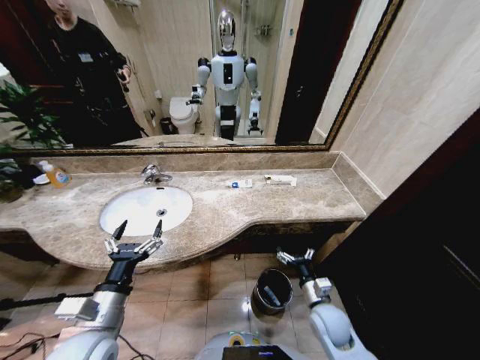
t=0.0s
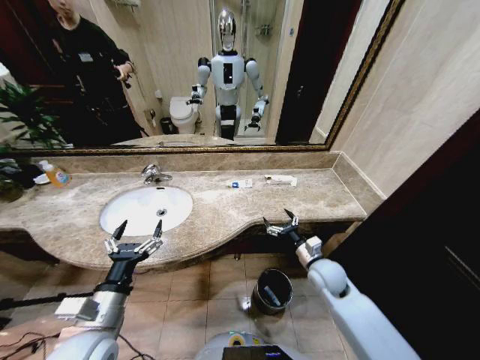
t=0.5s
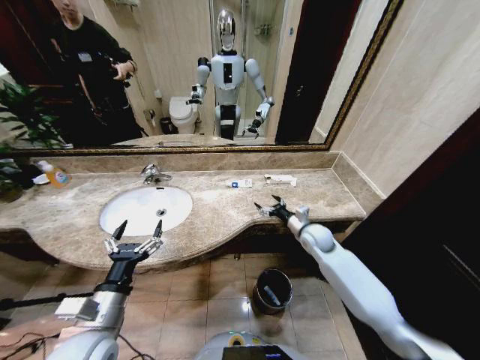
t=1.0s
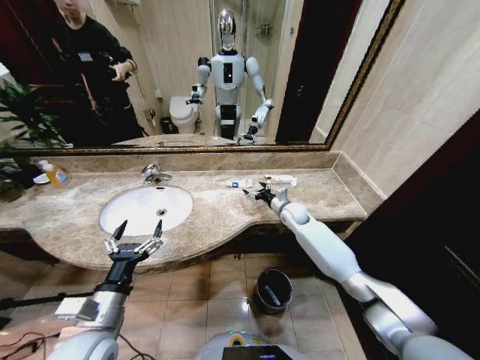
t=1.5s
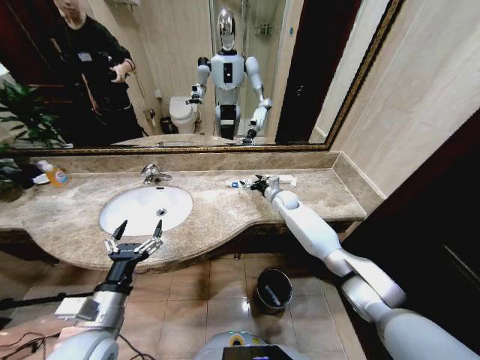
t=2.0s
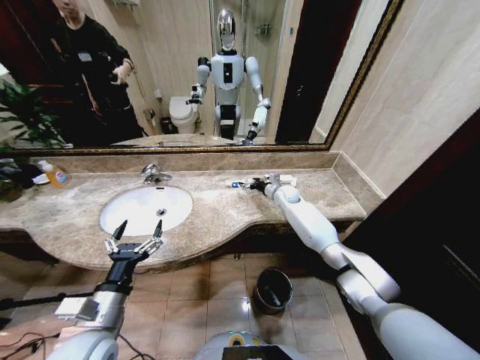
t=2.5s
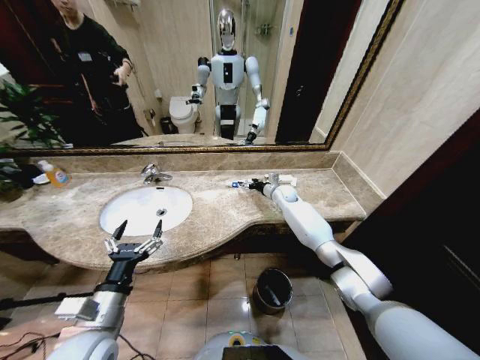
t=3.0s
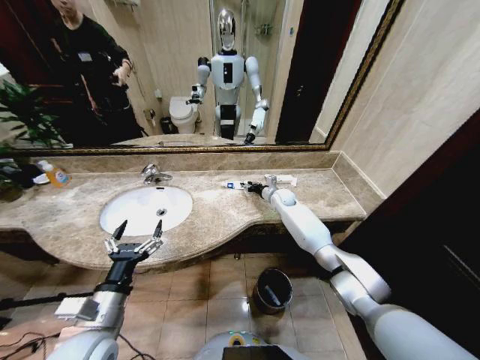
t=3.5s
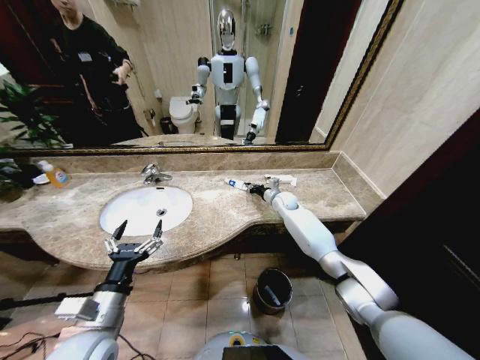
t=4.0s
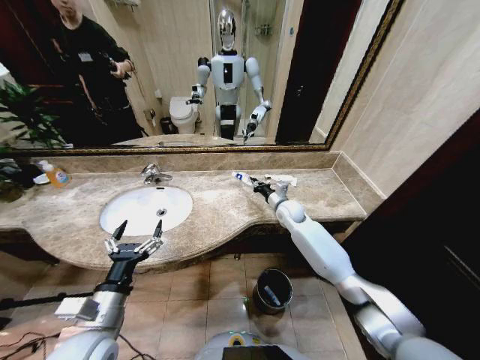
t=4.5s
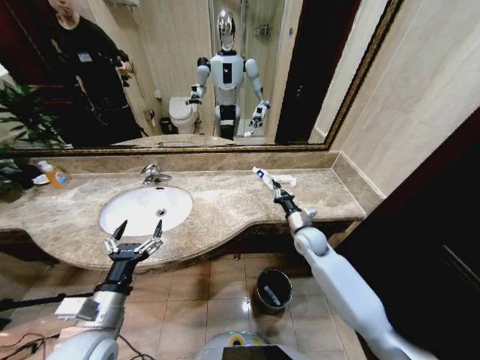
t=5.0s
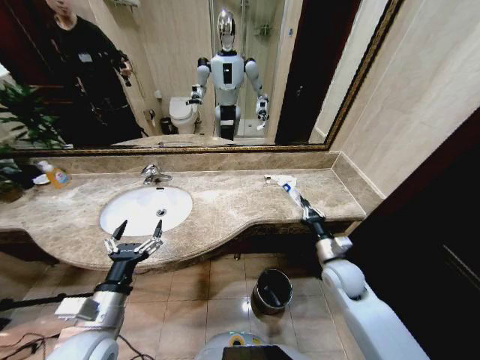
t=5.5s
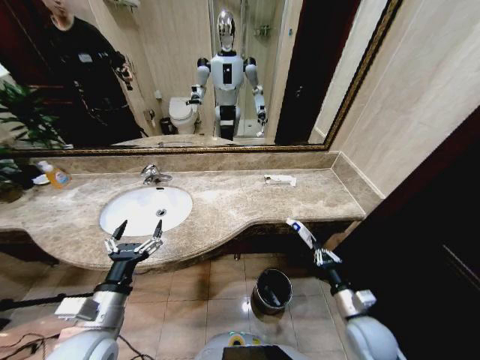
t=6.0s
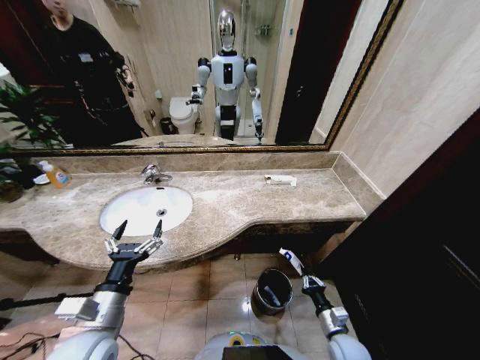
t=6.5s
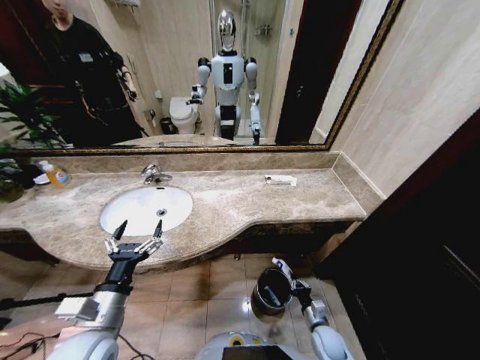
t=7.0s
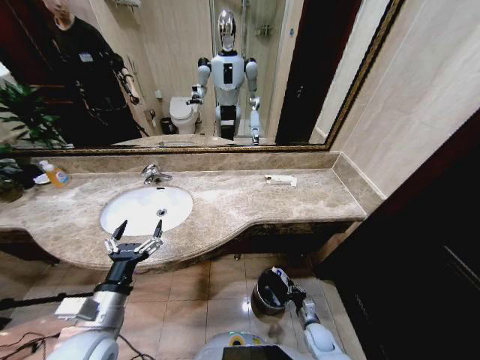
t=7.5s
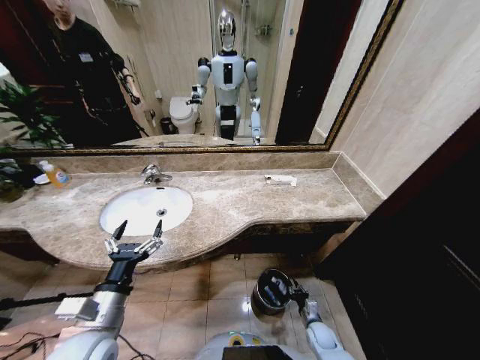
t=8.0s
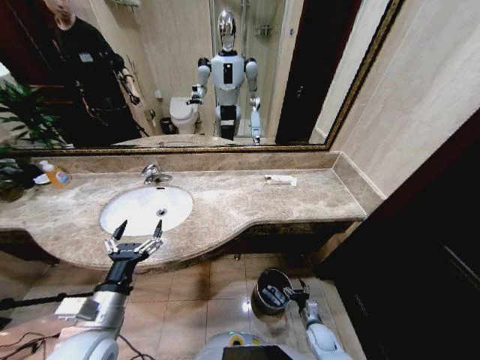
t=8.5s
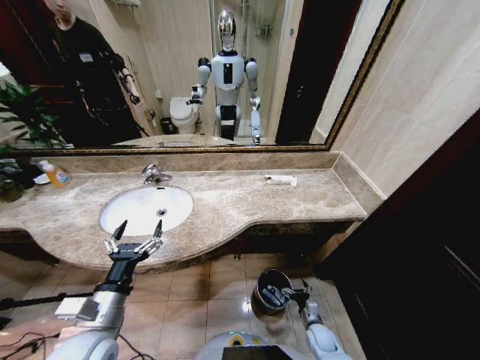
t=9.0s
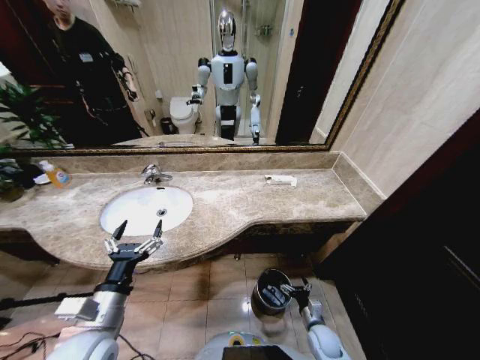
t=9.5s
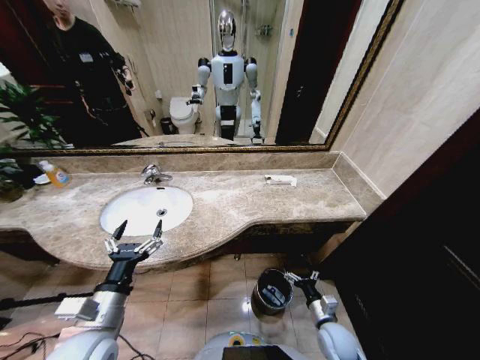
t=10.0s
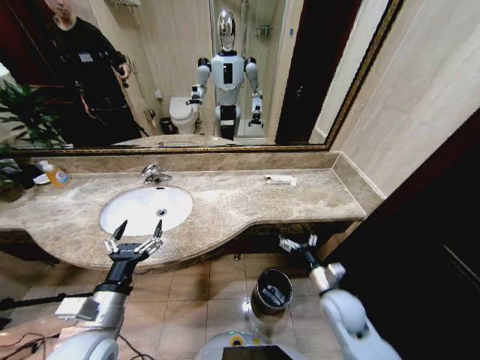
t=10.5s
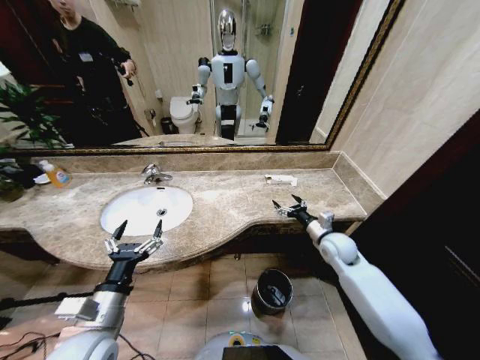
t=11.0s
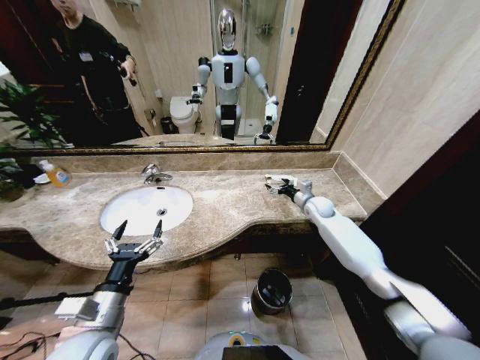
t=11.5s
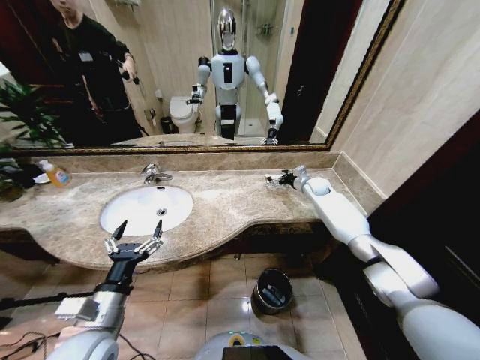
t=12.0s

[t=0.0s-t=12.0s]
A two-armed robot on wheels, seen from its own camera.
Task of the whole recording: Pick up the trash from the sink and place it in the trash bin.
t=0.0s to t=2.0s: The right gripper goes roughly 40 cm forward.
t=2.0s to t=4.0s: The right gripper closes.
t=4.0s to t=6.0s: The right gripper shifts approximately 40 cm backward.
t=6.0s to t=8.0s: The right gripper heads downward, covering roughly 25 cm.
t=8.0s to t=10.0s: The right gripper heads upward, covering some 15 cm, and opens up.
t=10.0s to t=12.0s: The right gripper shifts some 50 cm forward and upward.

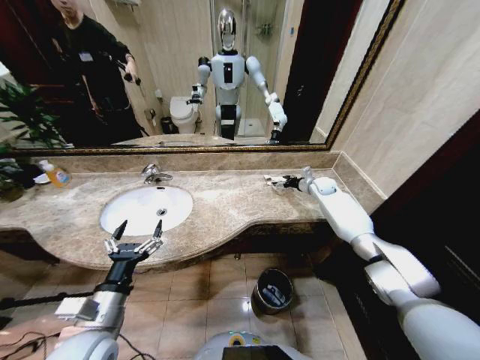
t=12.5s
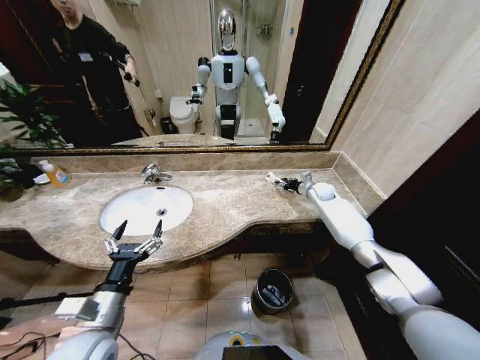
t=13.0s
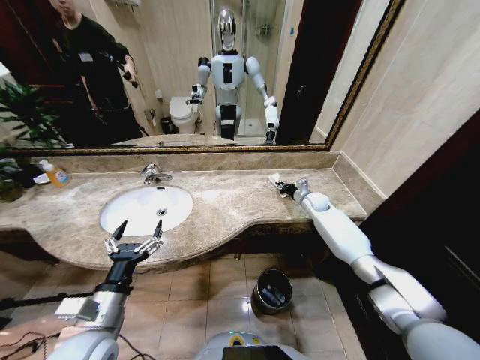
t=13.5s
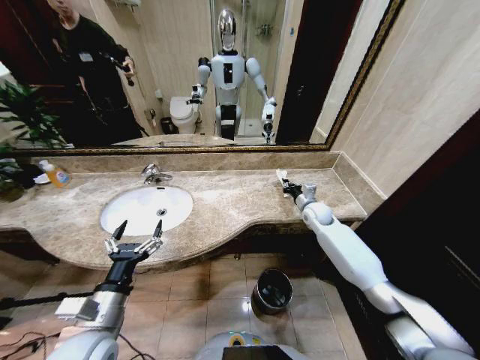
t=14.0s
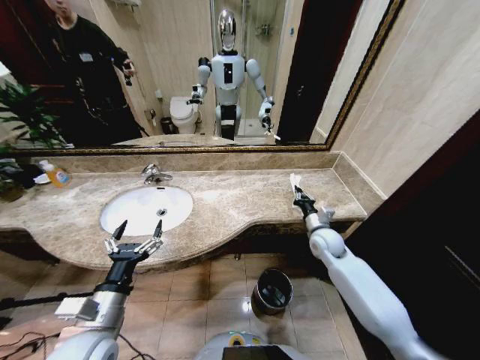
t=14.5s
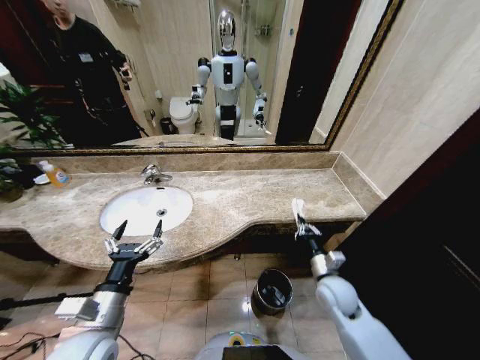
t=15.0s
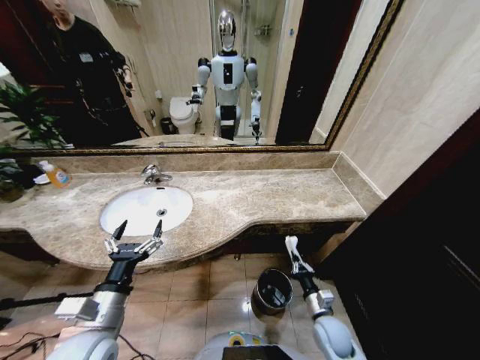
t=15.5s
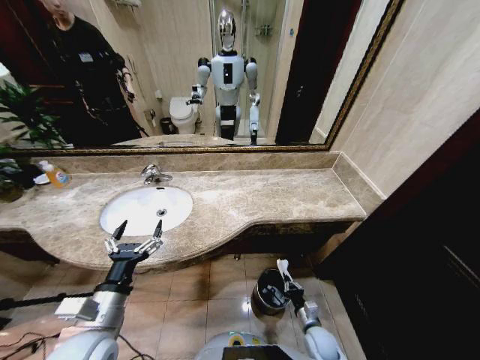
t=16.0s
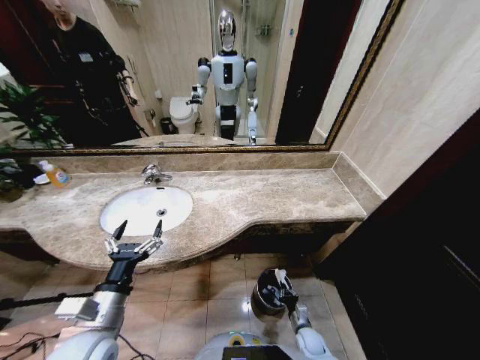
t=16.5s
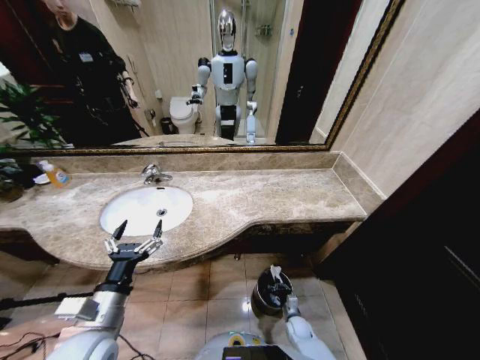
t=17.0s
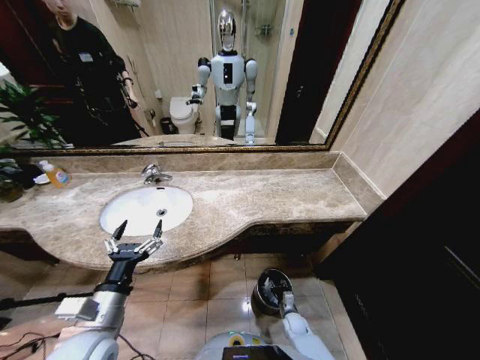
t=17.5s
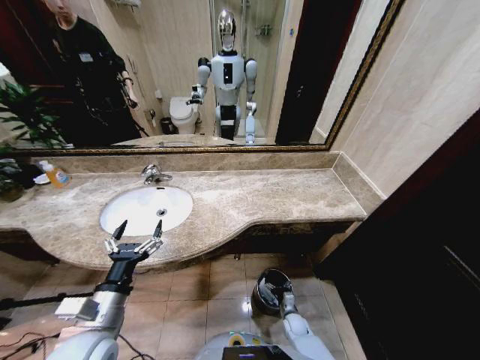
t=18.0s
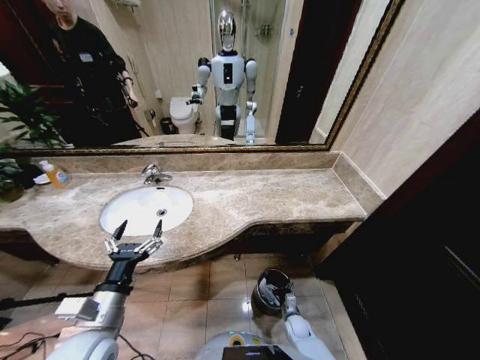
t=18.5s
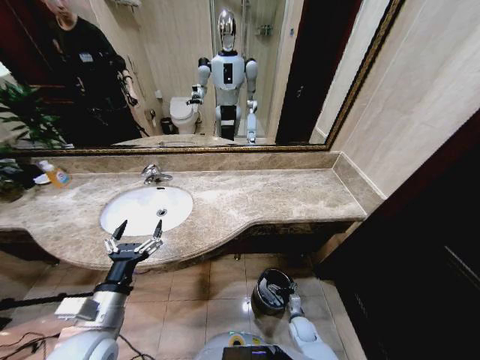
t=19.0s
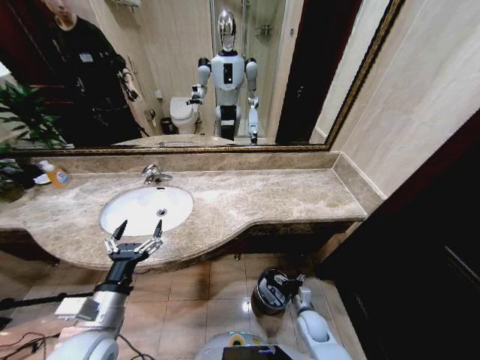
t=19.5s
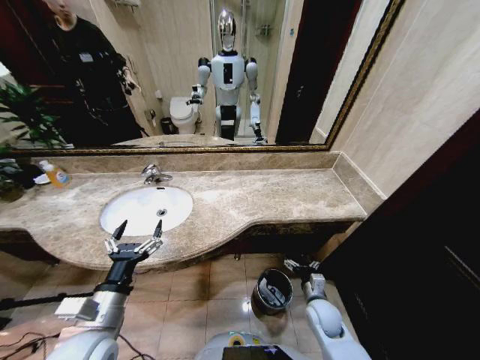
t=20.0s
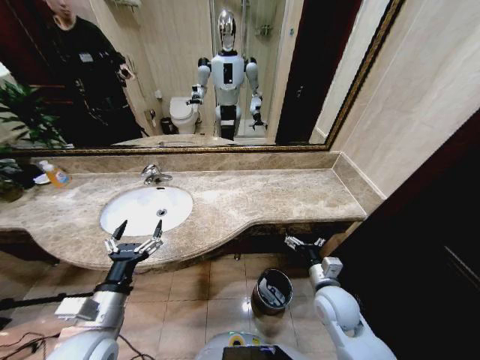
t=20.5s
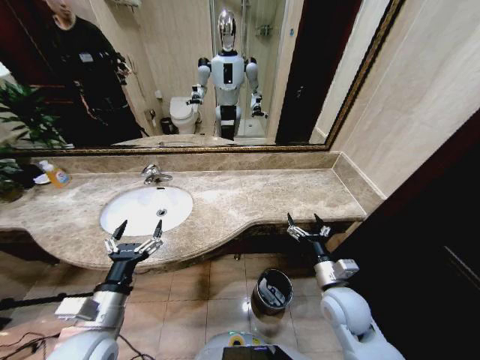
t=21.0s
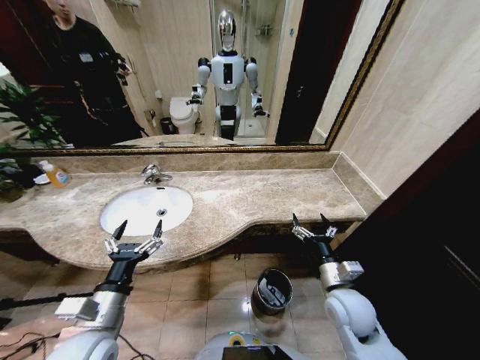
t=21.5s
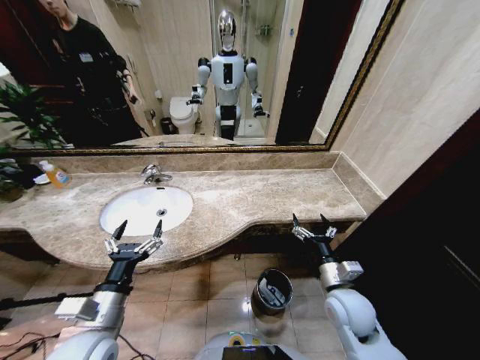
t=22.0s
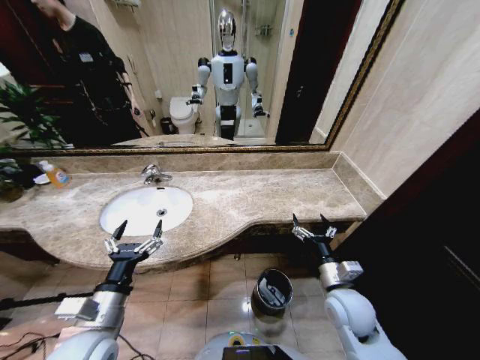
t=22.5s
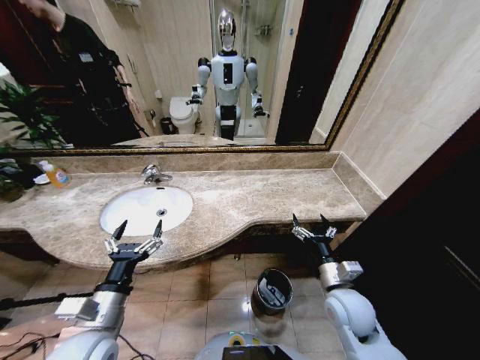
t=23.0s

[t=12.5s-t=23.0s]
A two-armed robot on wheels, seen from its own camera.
Task of the whole recording: Pick up the trash from the sink and place it in the trash bin.
t=12.5s to t=14.5s: The right gripper is displaced backward by about 25 cm, and closes up.
t=14.5s to t=16.5s: The right gripper goes some 40 cm downward and backward.
t=16.5s to t=19.0s: The right gripper opens.
t=19.0s to t=21.0s: The right gripper moves upward, some 30 cm.
t=21.0s to t=23.0s: Neither gripper changes place.

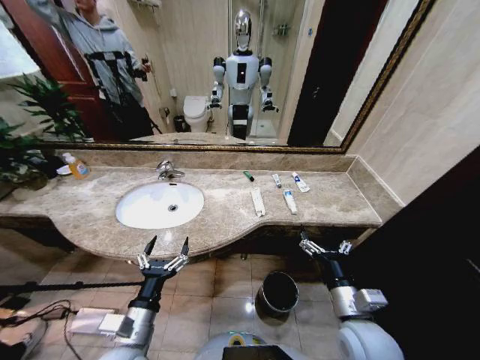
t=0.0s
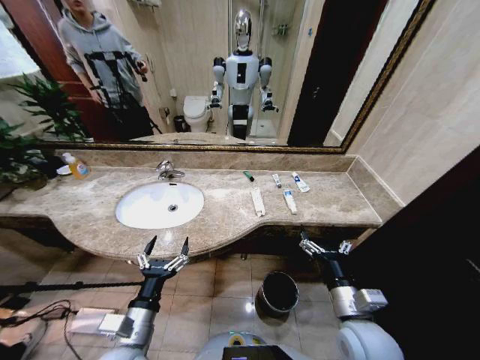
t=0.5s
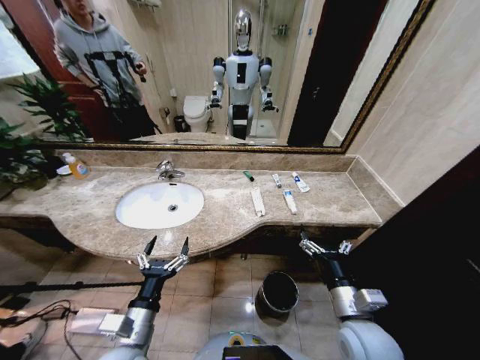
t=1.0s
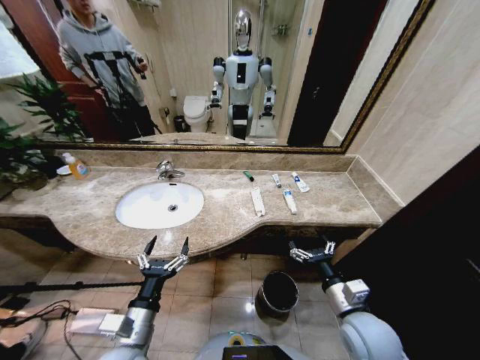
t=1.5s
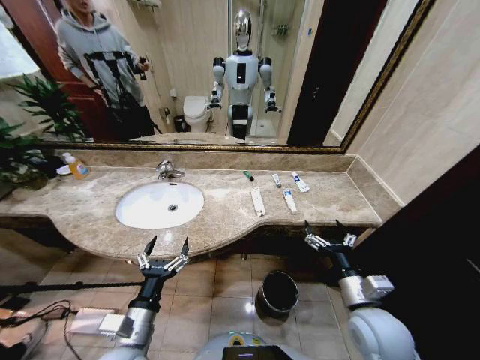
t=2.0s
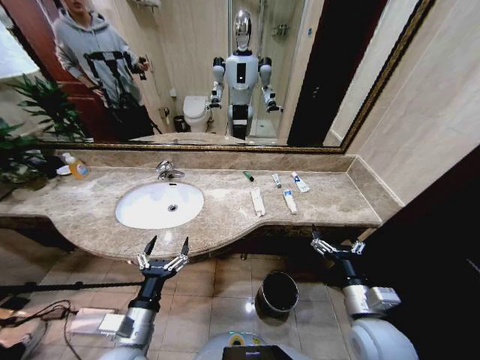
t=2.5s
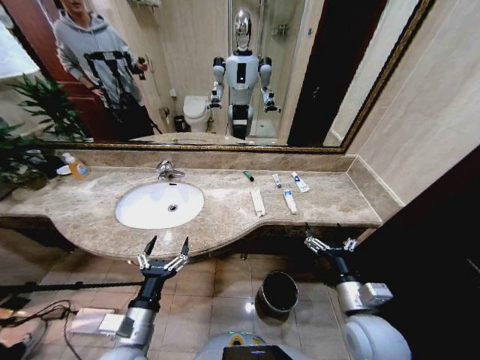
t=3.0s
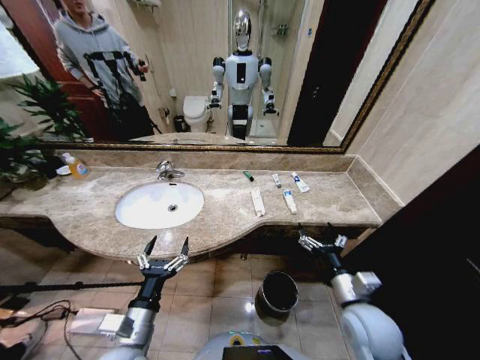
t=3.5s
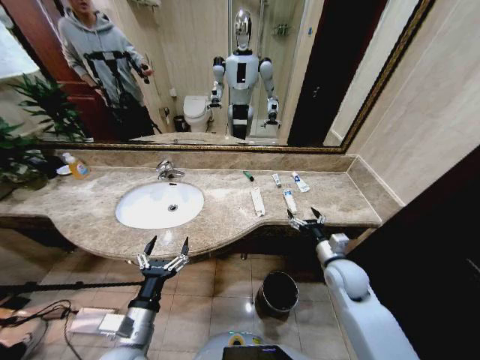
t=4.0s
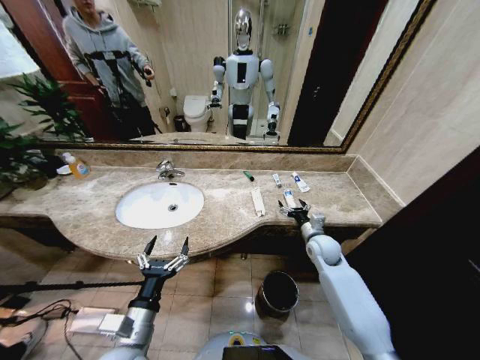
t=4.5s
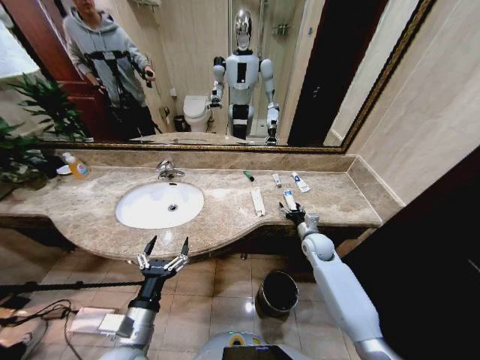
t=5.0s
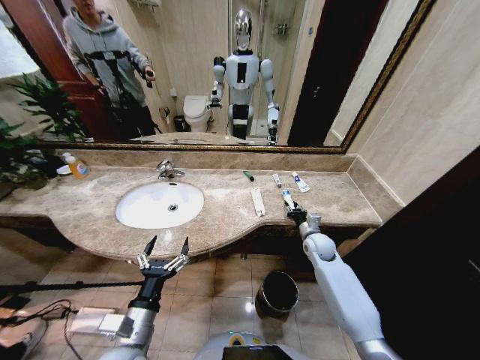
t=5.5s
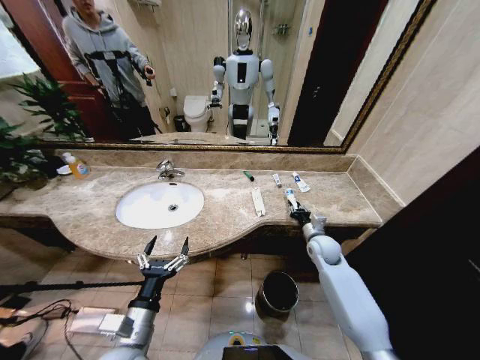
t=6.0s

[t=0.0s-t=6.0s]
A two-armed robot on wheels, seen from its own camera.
Task of the whole recording: Pick up the trash from the sink and place it in the trash bin.
t=2.0s to t=4.0s: The right gripper goes approximately 10 cm forward.
t=4.0s to t=6.0s: The right gripper is displaced forward by about 10 cm, and closes its fingers.
